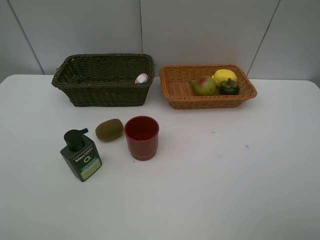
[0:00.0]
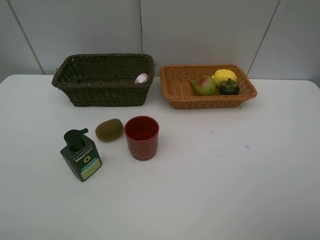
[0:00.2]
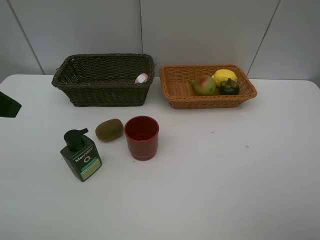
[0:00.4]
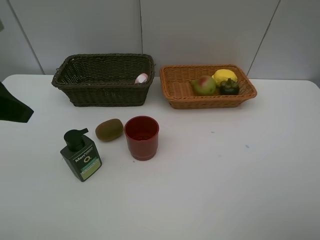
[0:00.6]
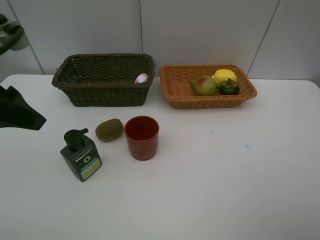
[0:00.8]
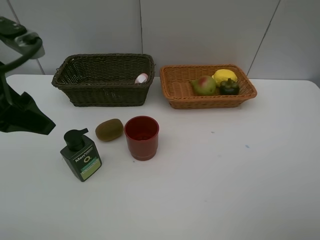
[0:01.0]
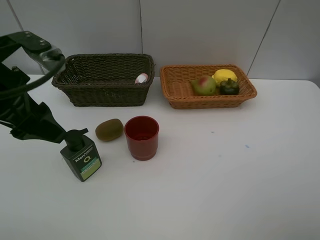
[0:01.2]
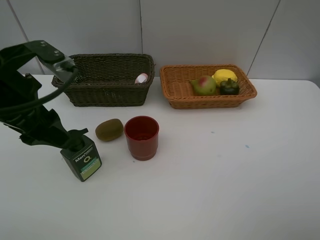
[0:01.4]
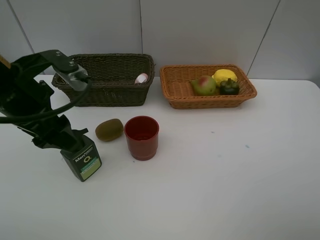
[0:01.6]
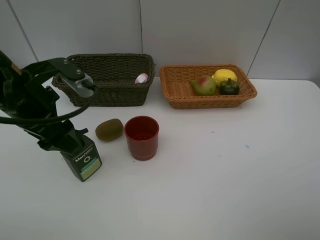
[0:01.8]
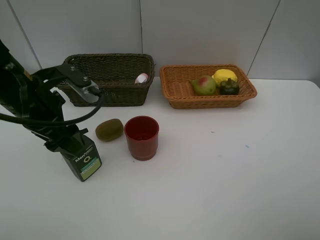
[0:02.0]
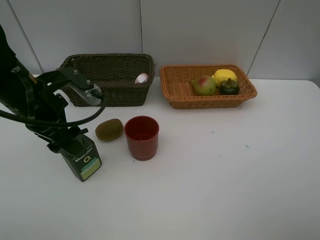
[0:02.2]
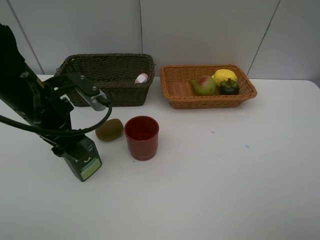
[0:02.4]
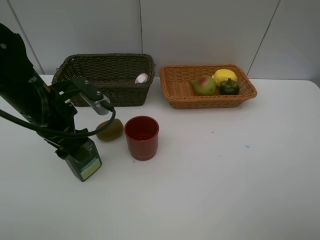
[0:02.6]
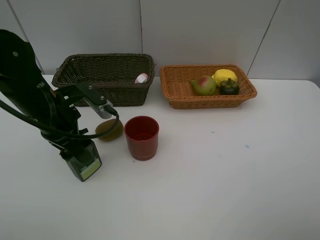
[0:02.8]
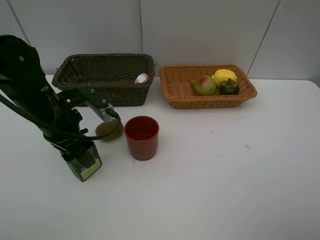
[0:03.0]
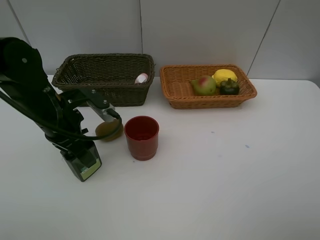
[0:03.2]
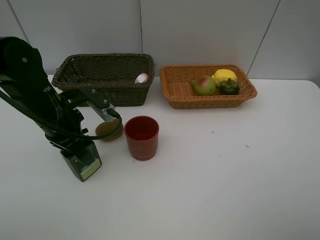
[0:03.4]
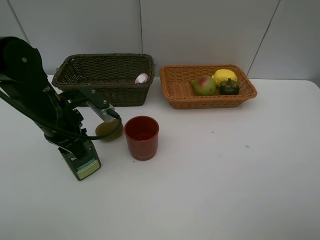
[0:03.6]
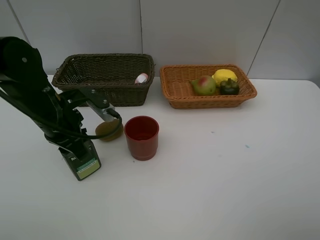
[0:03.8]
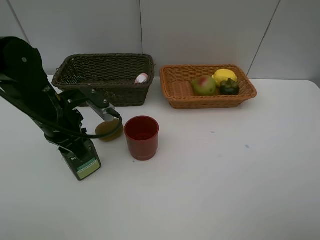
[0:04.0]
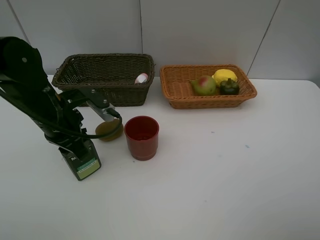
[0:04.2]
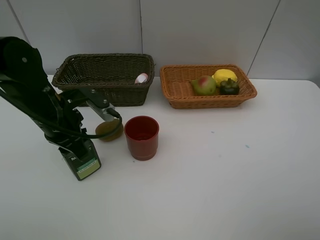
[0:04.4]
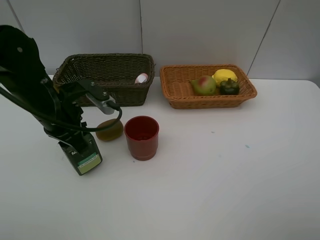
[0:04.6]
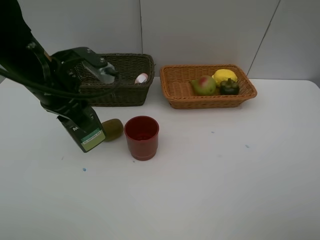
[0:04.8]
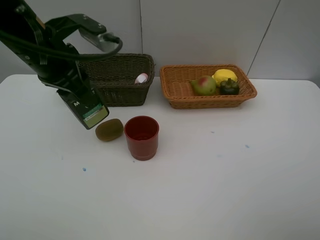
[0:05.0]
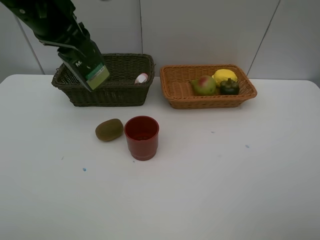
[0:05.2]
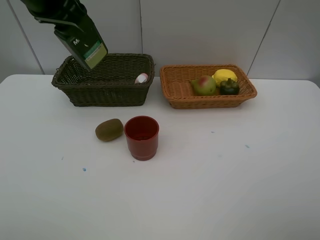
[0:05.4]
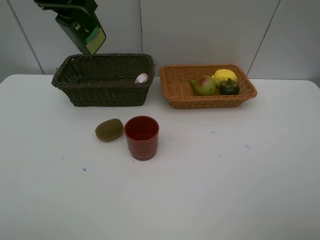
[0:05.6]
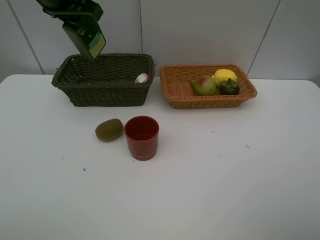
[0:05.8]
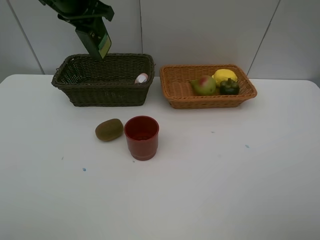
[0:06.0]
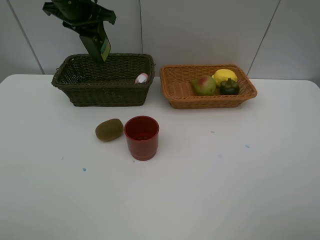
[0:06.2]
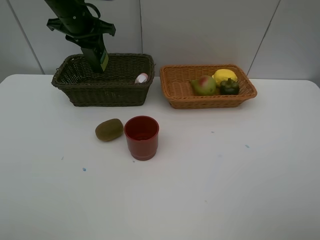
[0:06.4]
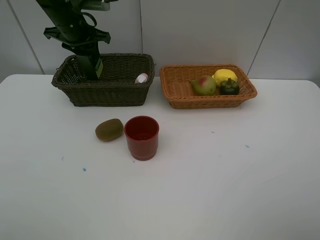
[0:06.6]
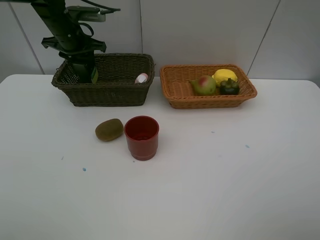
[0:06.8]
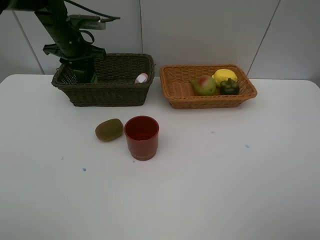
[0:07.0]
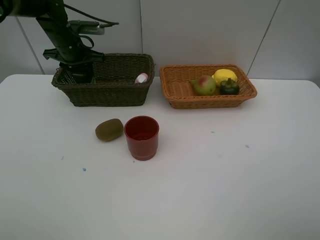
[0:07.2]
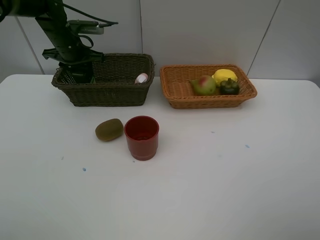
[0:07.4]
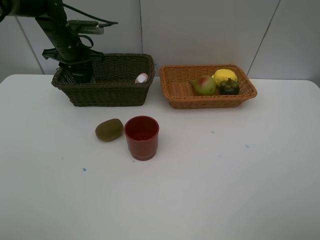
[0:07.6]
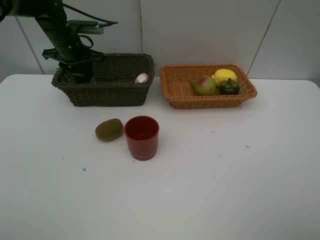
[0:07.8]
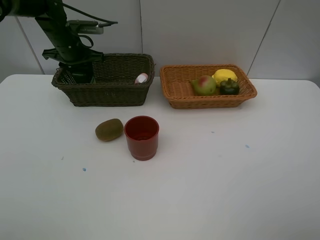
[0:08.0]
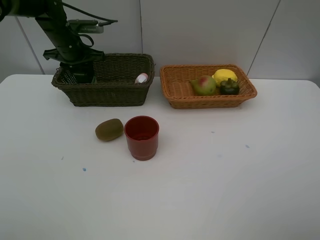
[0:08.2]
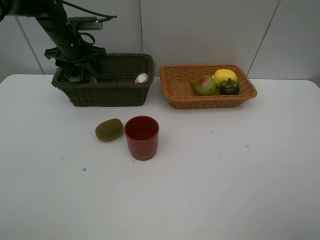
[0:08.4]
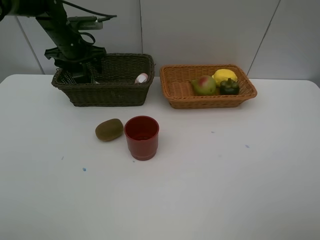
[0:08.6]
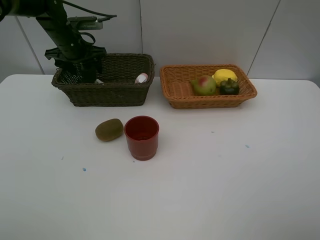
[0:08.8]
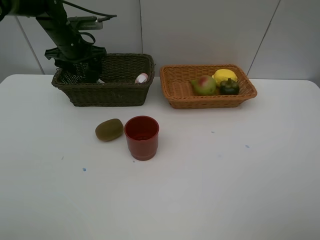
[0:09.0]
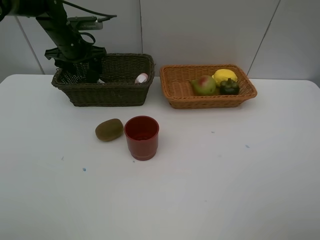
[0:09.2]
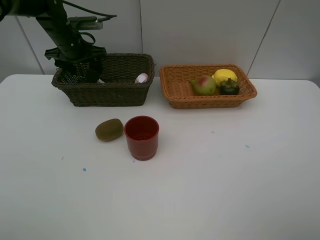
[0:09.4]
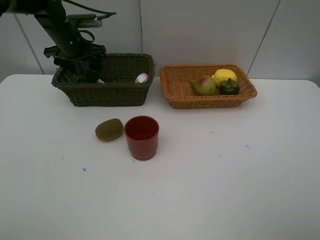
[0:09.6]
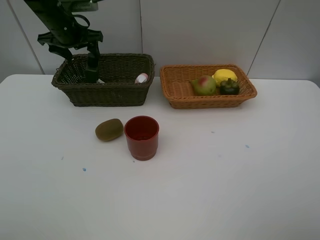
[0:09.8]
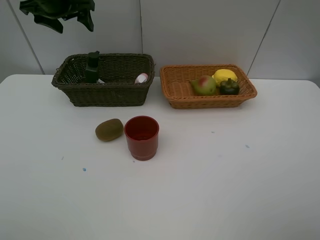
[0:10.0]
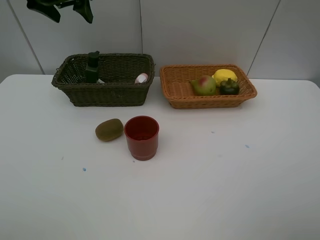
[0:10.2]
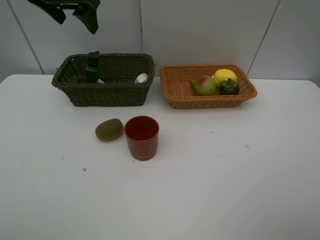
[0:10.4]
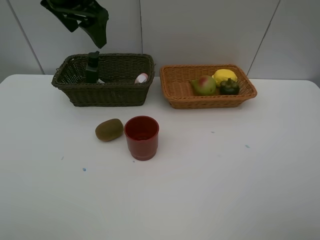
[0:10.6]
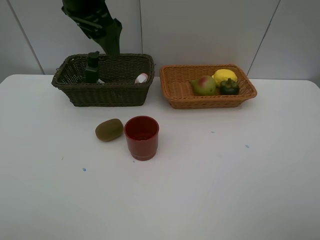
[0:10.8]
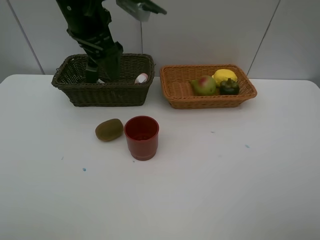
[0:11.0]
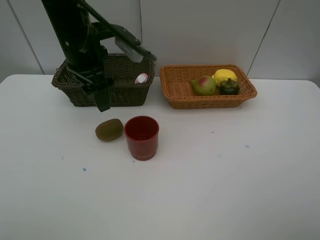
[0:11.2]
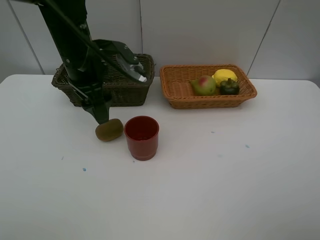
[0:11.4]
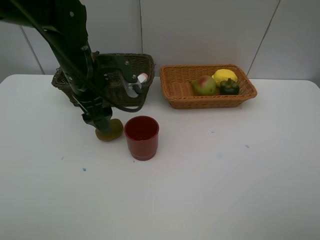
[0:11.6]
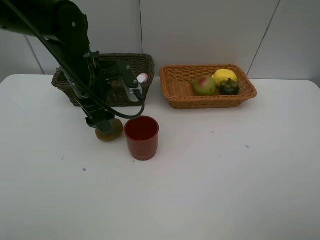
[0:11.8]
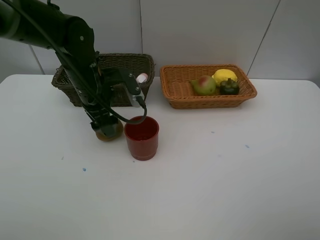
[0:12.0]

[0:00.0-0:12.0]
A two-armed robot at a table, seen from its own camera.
Task of the whole recording: Place multiple objects separately in different baskets.
Step, 0:00.0 to 0:04.6: Pick up the hard facial cleanser with left gripper.
Step, 0:04.8 to 0:09.8: Place the hard facial cleanser in the dark basket with left gripper.
0:00.0 to 0:01.6: The left gripper moves downward, forward and to the right, some 15 cm.
0:01.6 to 0:03.0: The left gripper travels downward by approximately 5 cm.
0:03.0 to 0:04.4: The left gripper closes its fingers.
0:04.4 to 0:06.0: The left gripper travels forward and upward by roughly 20 cm.
0:06.0 to 0:07.6: The left gripper is displaced downward, forward and to the left by some 15 cm.
0:07.6 to 0:09.0: The left gripper opens its fingers.
0:09.0 to 0:10.4: The left gripper travels upward and backward by approximately 20 cm.
0:10.4 to 0:12.0: The left gripper goes approximately 20 cm downward.

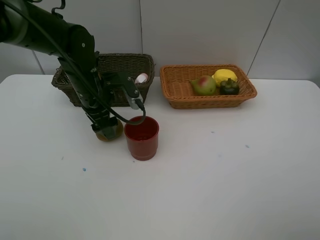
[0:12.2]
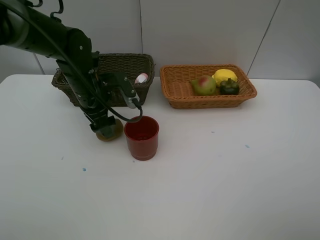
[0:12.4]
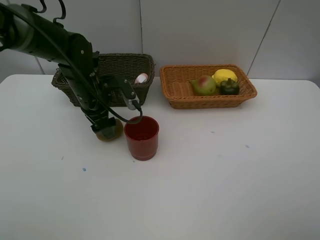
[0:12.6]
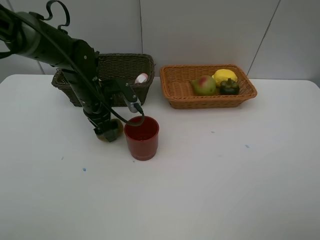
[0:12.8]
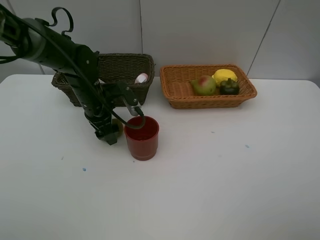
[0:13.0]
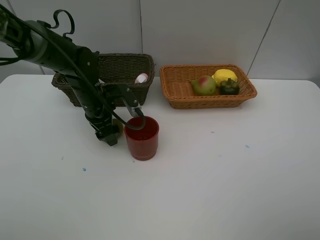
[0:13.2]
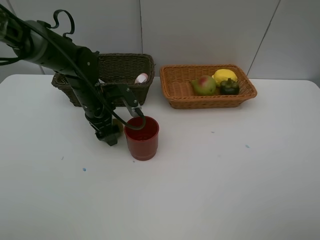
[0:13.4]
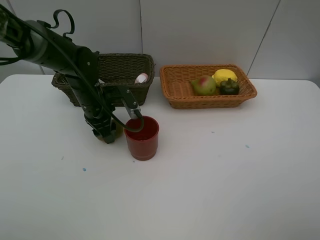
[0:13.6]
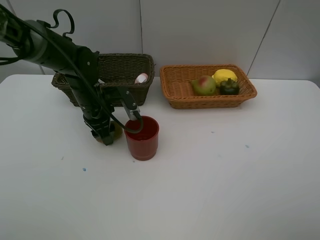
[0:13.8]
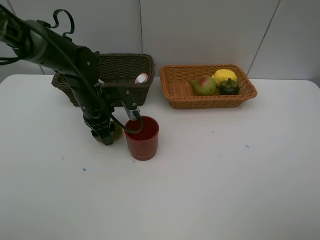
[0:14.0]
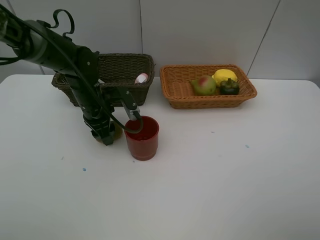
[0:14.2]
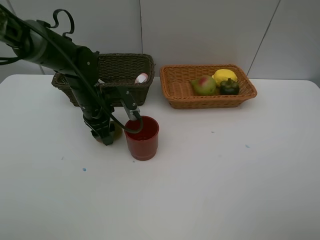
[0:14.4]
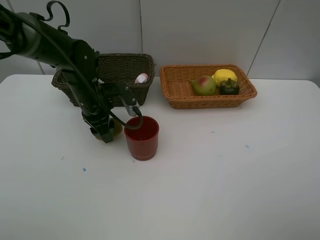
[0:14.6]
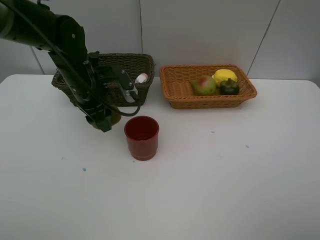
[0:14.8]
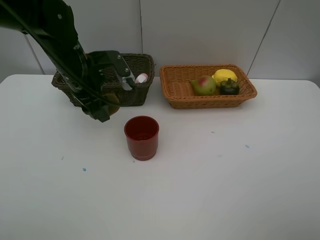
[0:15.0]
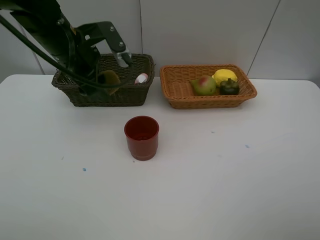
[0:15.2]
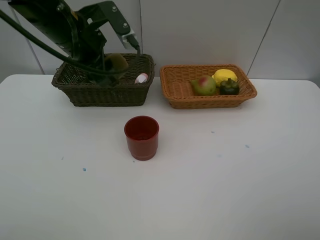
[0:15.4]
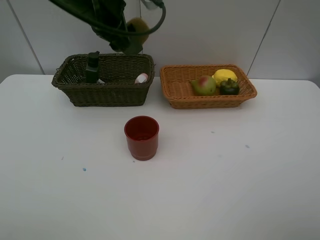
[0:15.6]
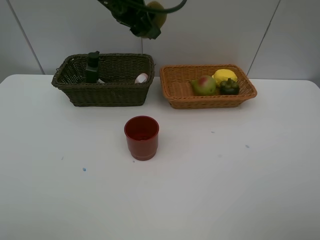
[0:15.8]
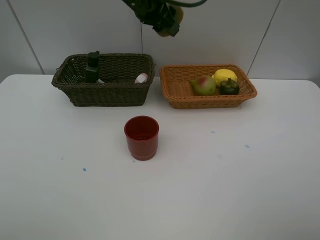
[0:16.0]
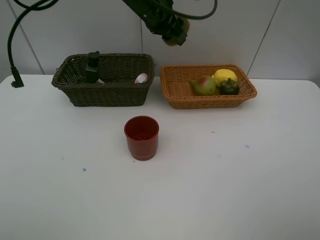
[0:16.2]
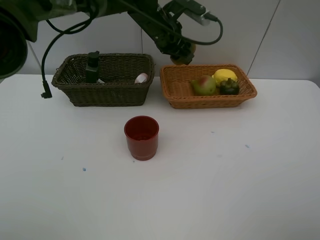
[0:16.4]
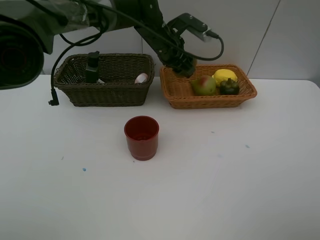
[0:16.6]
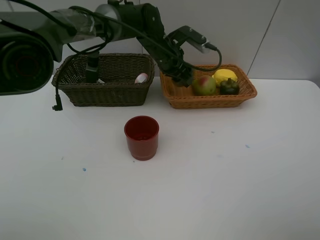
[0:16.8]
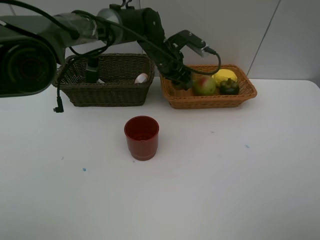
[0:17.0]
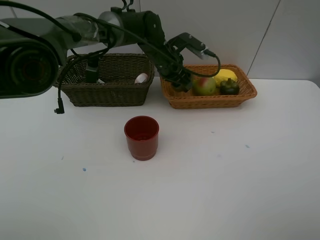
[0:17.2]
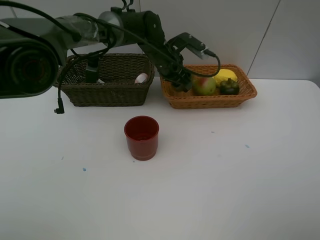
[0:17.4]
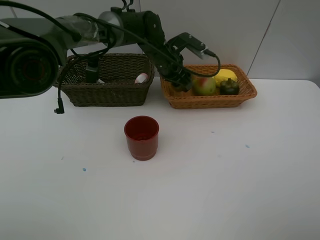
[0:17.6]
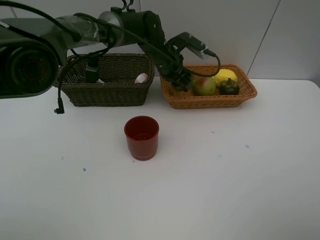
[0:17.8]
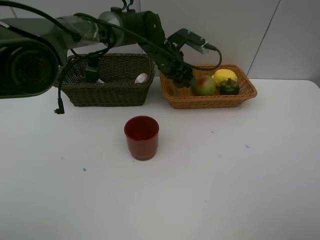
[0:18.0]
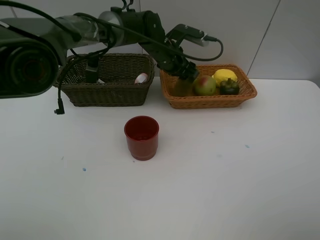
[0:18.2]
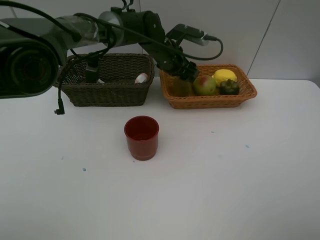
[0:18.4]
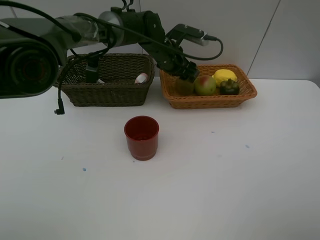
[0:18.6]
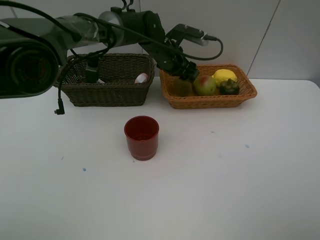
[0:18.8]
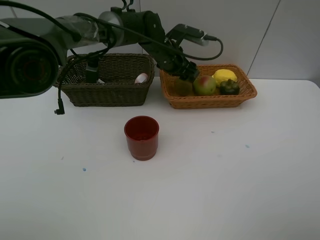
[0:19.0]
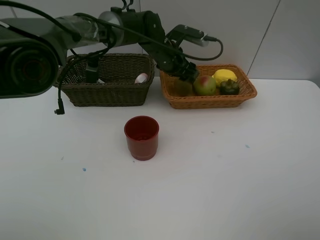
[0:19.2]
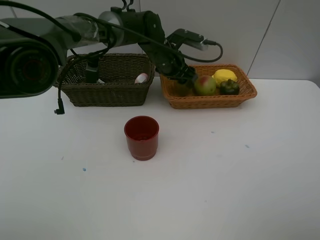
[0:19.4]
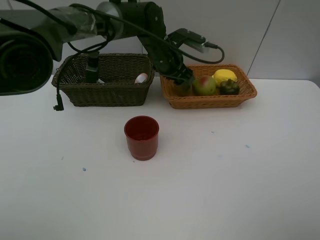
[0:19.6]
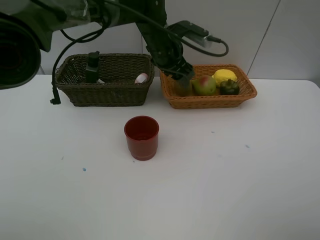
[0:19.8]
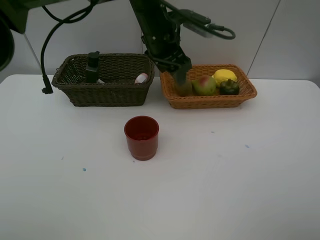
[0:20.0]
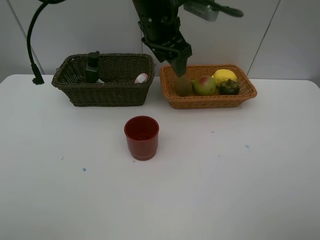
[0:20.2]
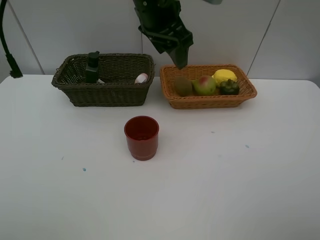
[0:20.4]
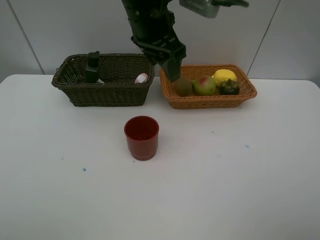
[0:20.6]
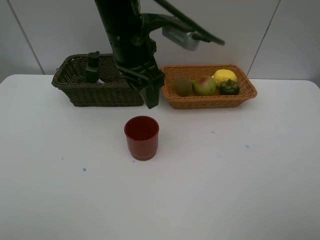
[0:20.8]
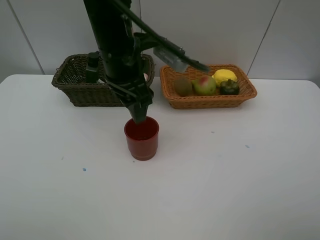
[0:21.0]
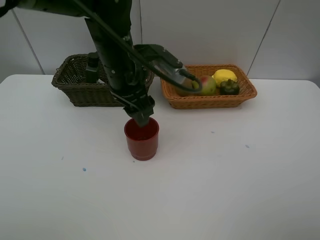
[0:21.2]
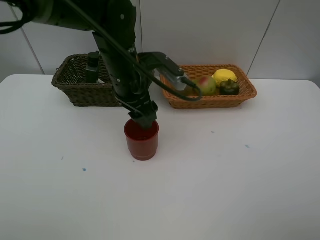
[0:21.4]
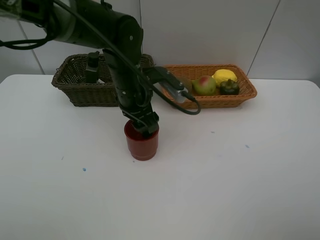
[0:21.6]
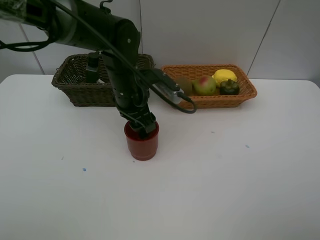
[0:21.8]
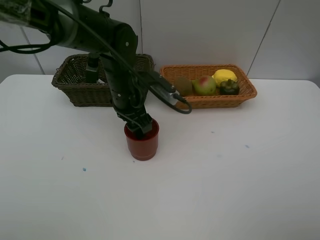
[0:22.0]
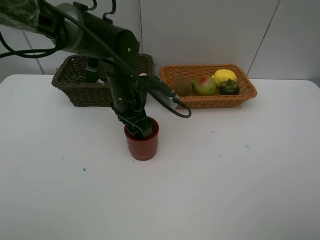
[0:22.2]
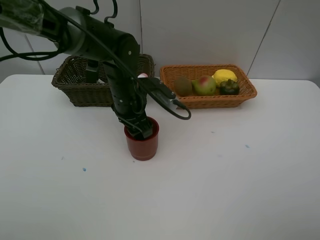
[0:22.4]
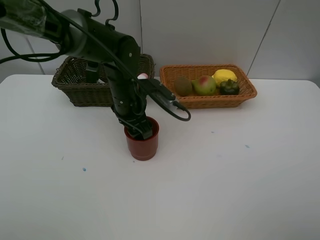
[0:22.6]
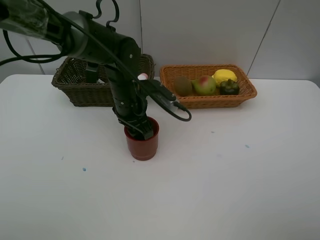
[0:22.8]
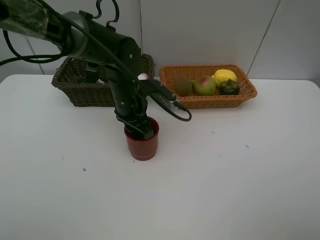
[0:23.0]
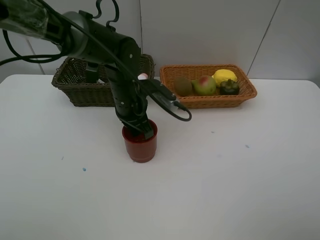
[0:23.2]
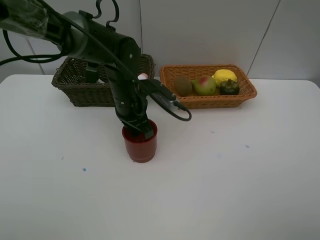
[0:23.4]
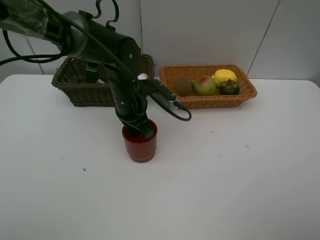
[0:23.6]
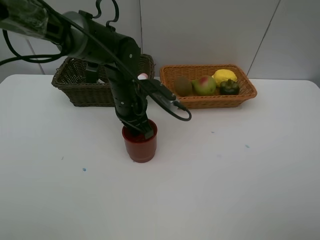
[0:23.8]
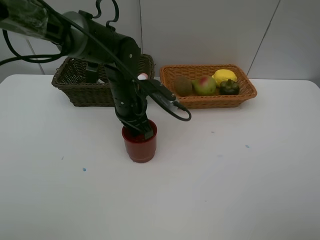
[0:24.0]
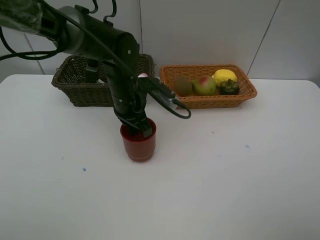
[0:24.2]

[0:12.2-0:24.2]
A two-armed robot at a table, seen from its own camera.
Task of the whole recording: Place multiple objects separately in different baskets.
Step, 0:12.2 to 0:14.6: Pick up kiwi with left gripper.
Step, 0:14.8 to 0:18.6: Place the kiwi in the light basket with left gripper.
0:12.2 to 0:13.8: The grippers move only a little.
0:13.8 to 0:15.2: The left gripper travels upward by some 15 cm.
0:15.2 to 0:16.6: The left gripper is displaced to the right and forward by roughly 20 cm.
0:16.6 to 0:18.2: The grippers make only small movements.
0:18.2 to 0:19.8: The left gripper changes place by roughly 5 cm.
0:19.8 to 0:21.2: The left gripper heads backward and to the left, covering about 15 cm.
0:21.2 to 0:22.6: The left gripper moves downward, some 10 cm.
0:22.6 to 0:24.2: The left gripper closes up.
